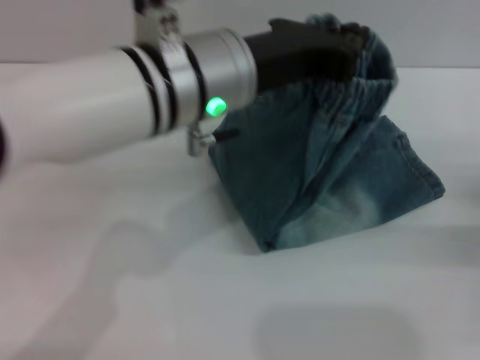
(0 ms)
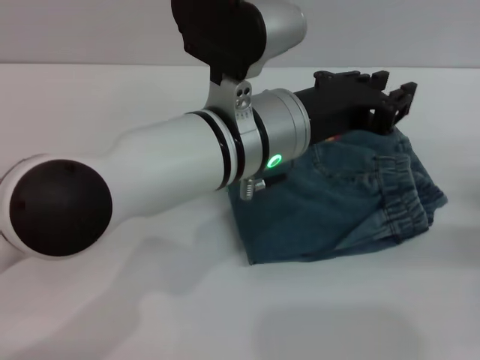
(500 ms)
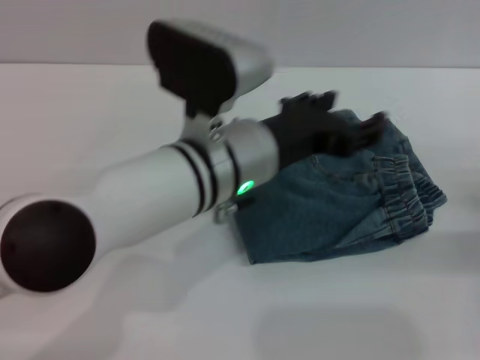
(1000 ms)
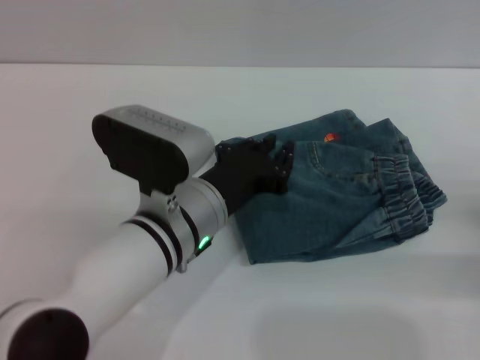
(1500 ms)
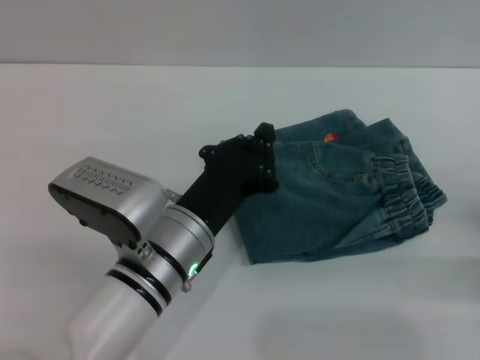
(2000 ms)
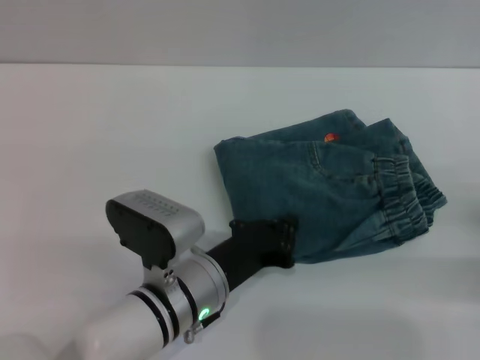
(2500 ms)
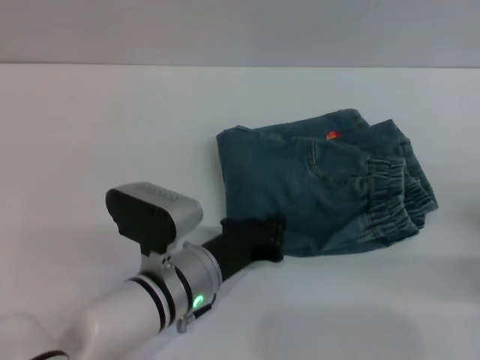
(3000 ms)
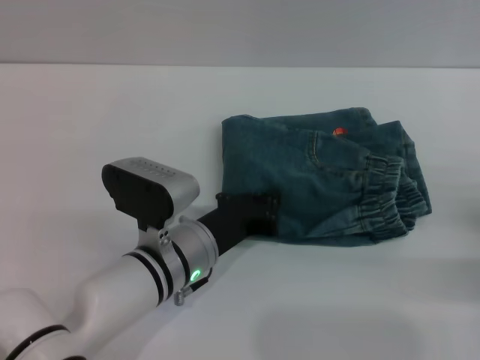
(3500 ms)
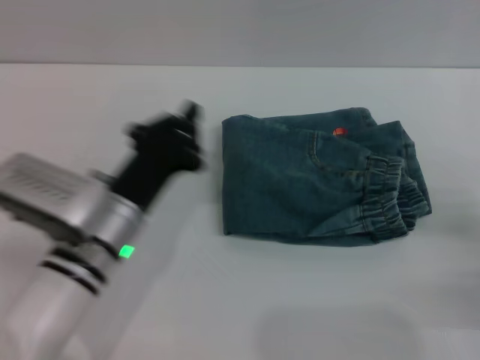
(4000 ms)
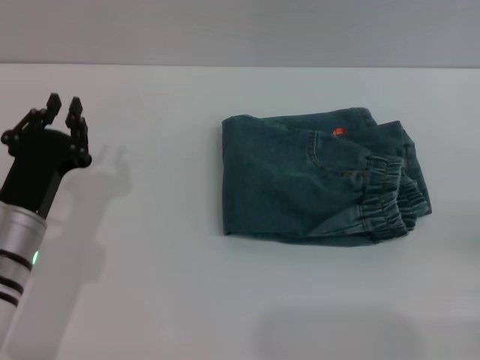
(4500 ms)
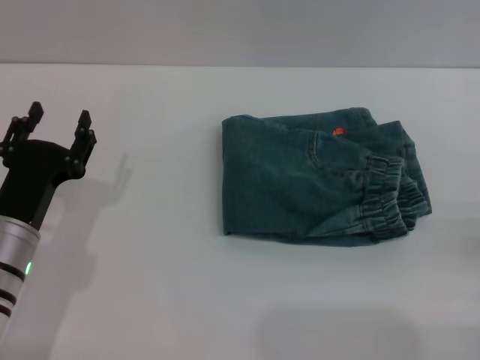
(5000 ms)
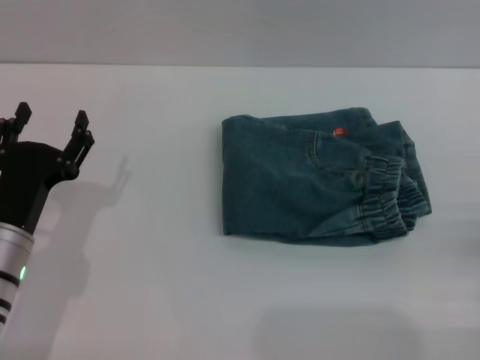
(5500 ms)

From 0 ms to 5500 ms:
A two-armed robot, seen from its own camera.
Step, from 1000 ms to 4000 ms: Place the folded trousers onto the center area with the left grippers.
From 0 ms to 2000 ms: The left gripper goes approximately 15 cm downward, and opens, then closes again.
From 3500 ms to 5500 ms: The right gripper goes about 5 cm backward, and opens; the left gripper goes about 15 cm to the left, and opens.

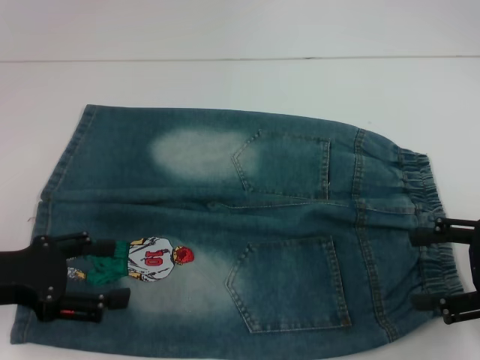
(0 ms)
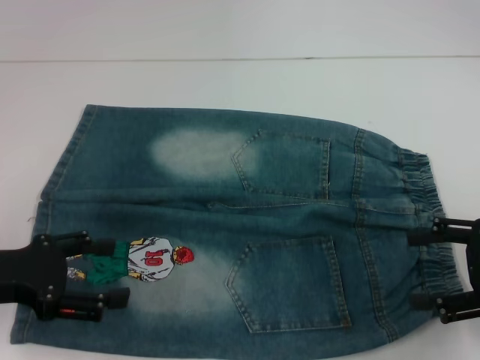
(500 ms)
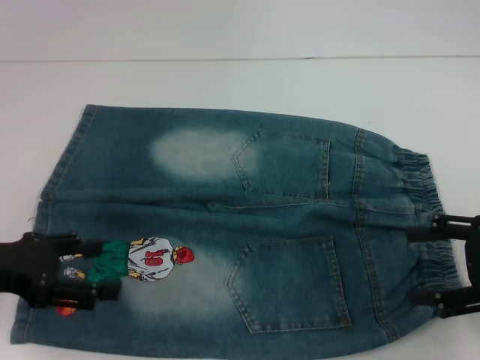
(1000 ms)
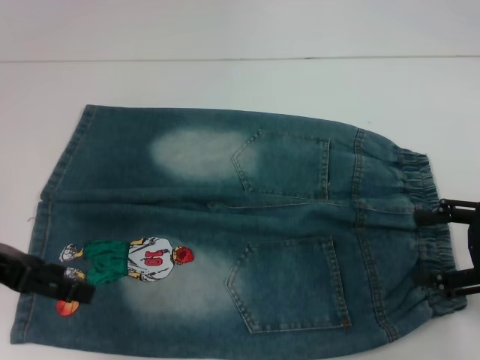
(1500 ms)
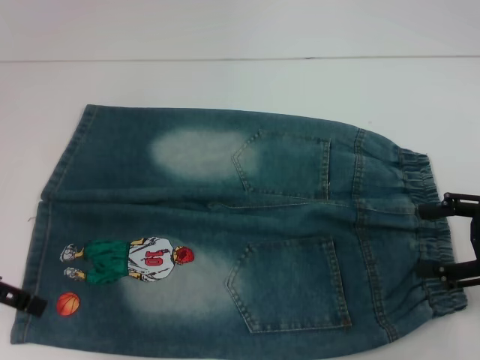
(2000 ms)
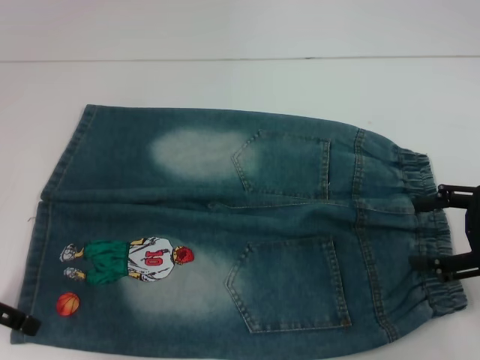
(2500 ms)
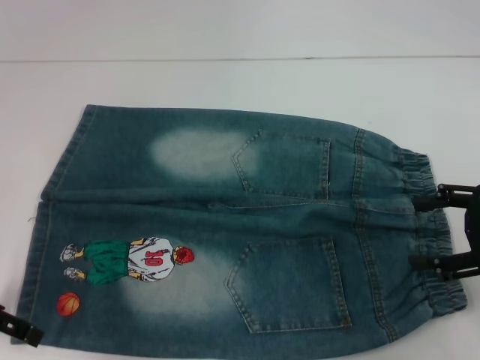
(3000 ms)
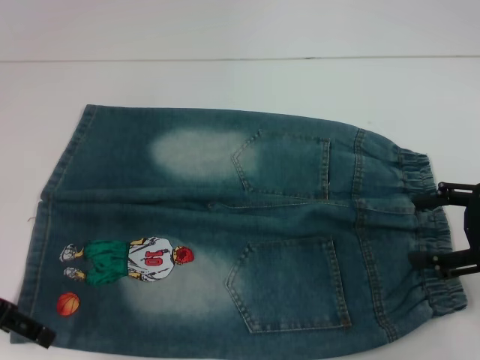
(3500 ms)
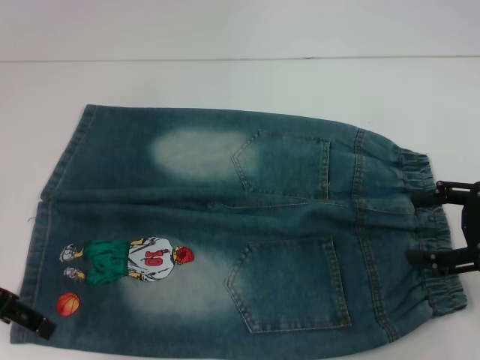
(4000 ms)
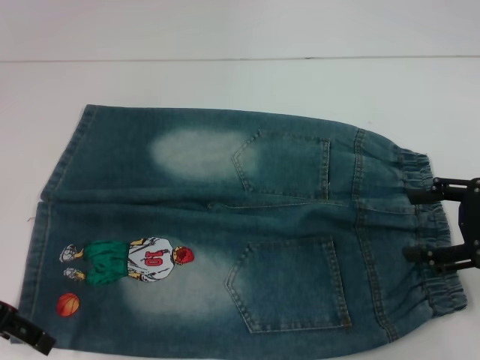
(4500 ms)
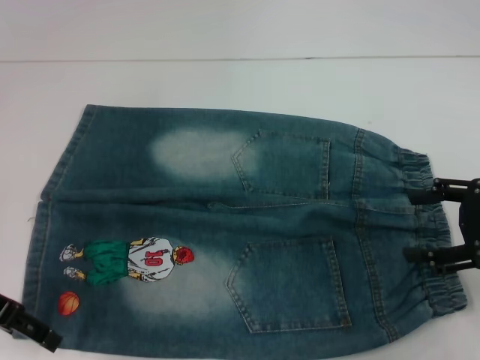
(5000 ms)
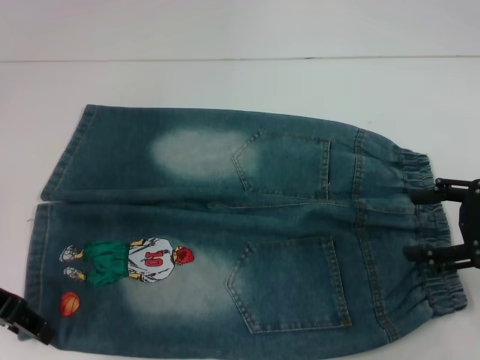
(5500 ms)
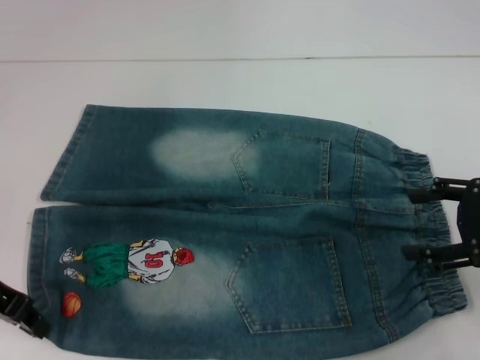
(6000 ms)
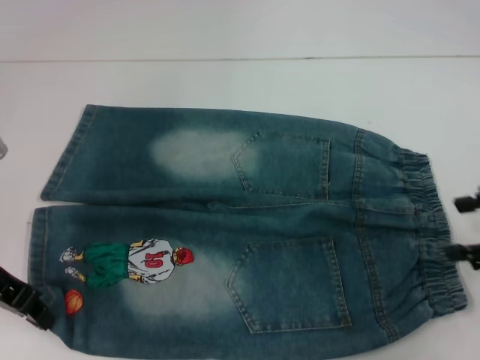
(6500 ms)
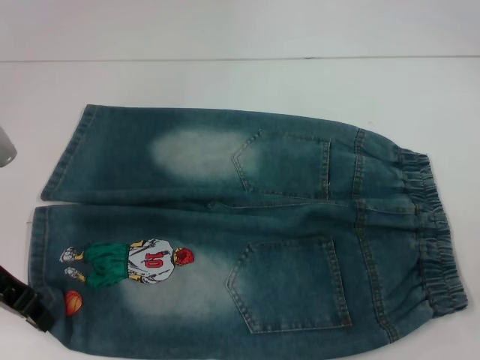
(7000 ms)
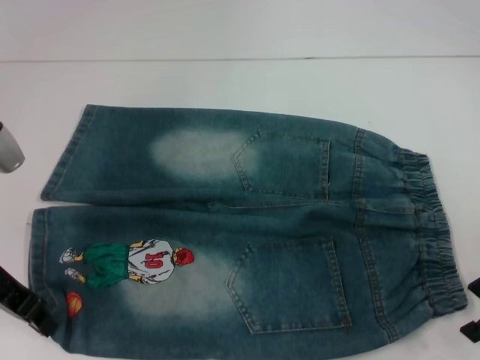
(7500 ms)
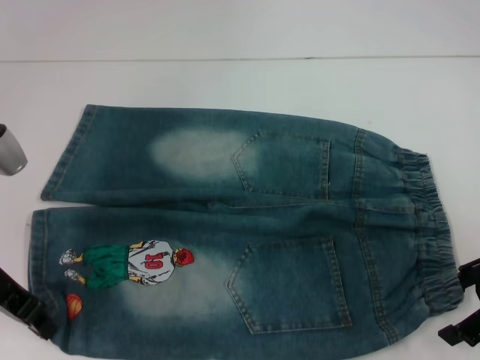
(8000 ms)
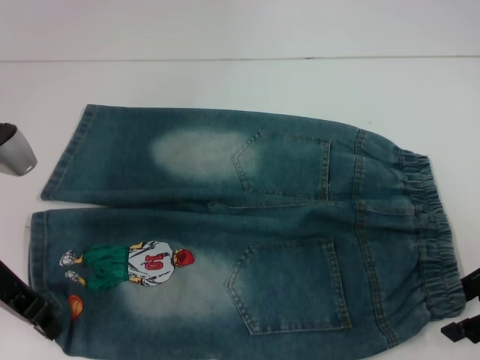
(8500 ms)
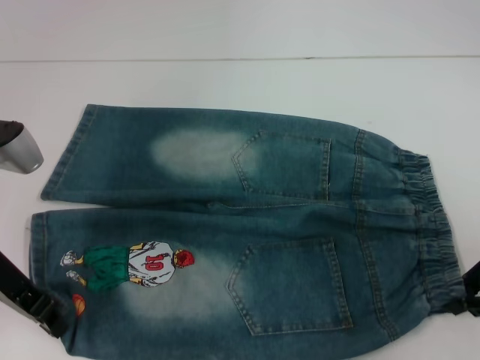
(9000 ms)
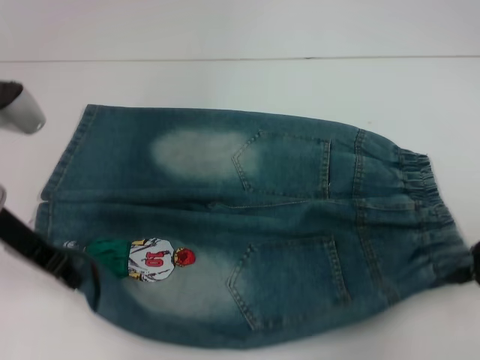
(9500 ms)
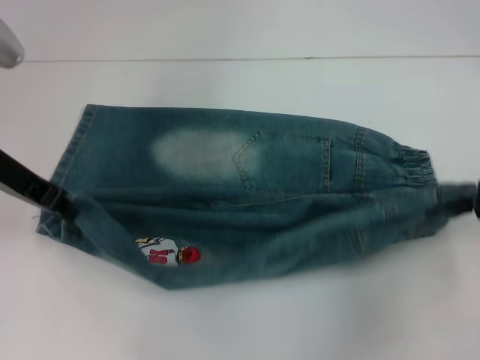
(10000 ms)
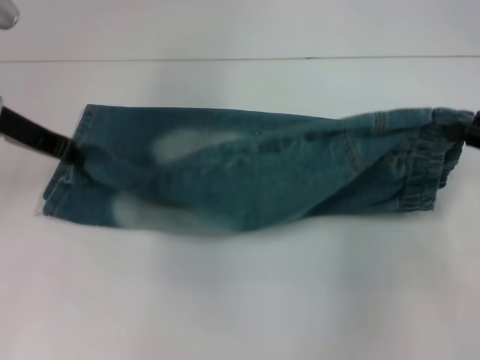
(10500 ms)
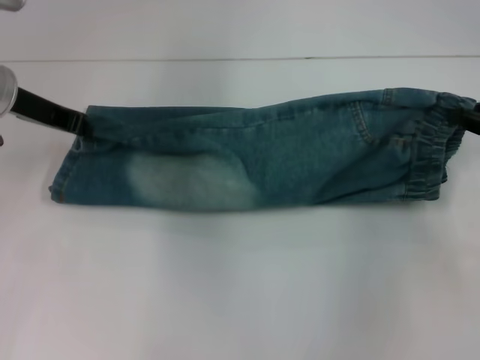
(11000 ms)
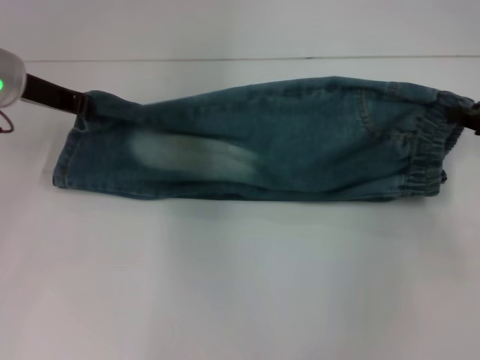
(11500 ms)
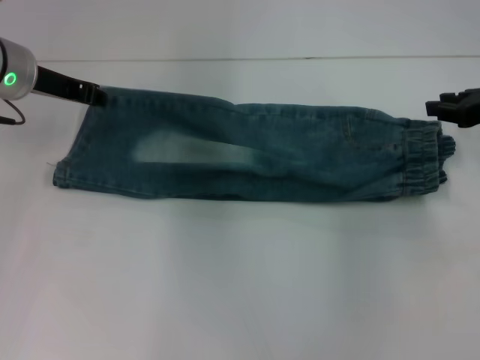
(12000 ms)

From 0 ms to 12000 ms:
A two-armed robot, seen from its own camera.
Step, from 0 ms to 7500 ms: Grab the lower left pant leg with your left hand.
Step, from 8000 ms to 8500 ms: Hold the lower right waistband with your right hand.
From 0 ms to 2000 ms: The left gripper ends up about 5 cm from where it was.
From 2000 ms to 4000 ms: The grippers stay close to where they were, moving slightly.
From 4000 ms to 6000 ms: The left gripper closes its fingers.
From 8000 ms to 10000 ms: The right gripper shifts by roughly 5 cm, and closes its fingers; the left gripper heads forward and upward, covering some 10 cm.
From 10000 ms to 12000 ms: The grippers both shift forward by some 5 cm.

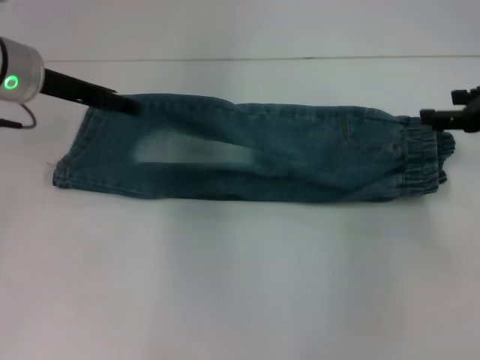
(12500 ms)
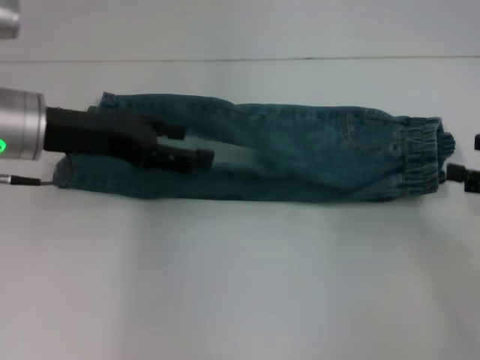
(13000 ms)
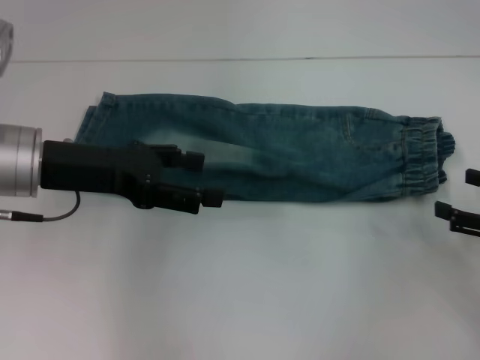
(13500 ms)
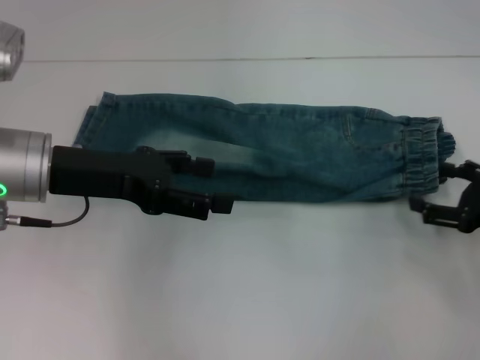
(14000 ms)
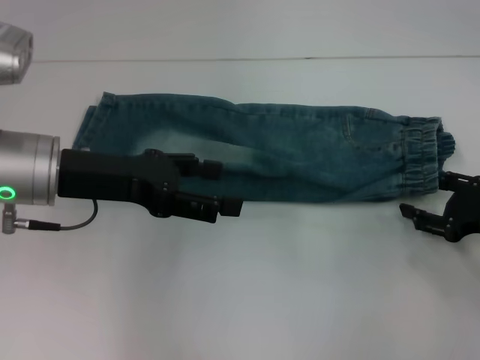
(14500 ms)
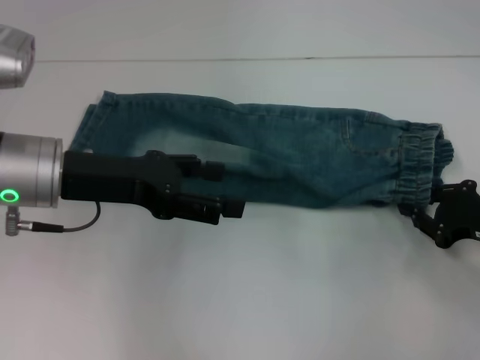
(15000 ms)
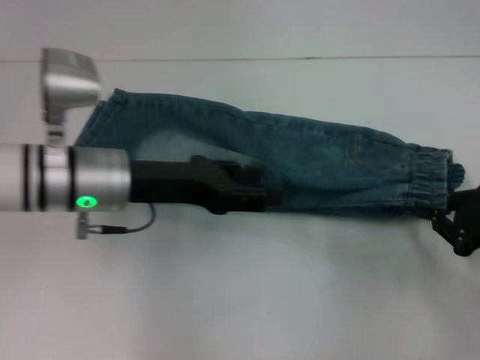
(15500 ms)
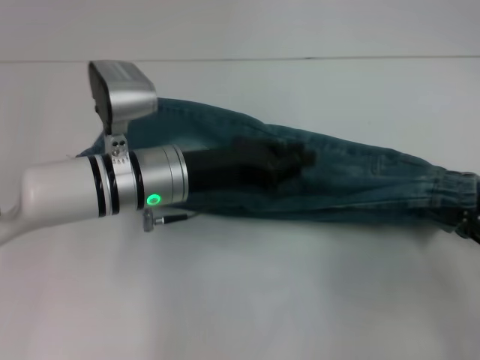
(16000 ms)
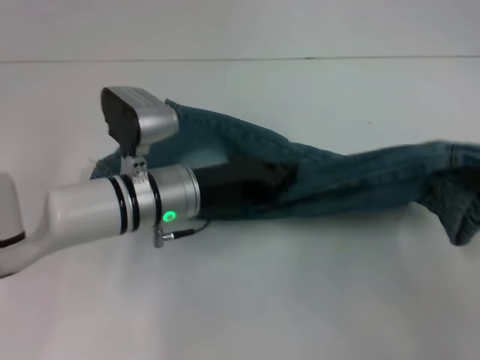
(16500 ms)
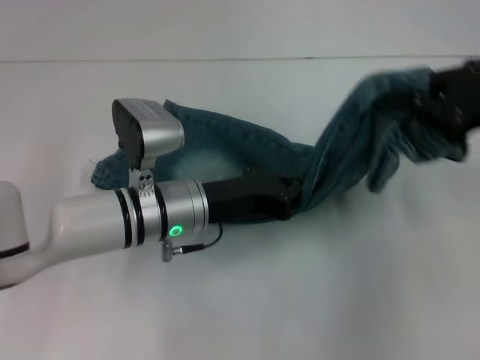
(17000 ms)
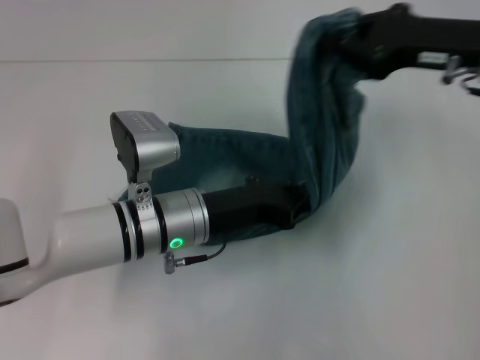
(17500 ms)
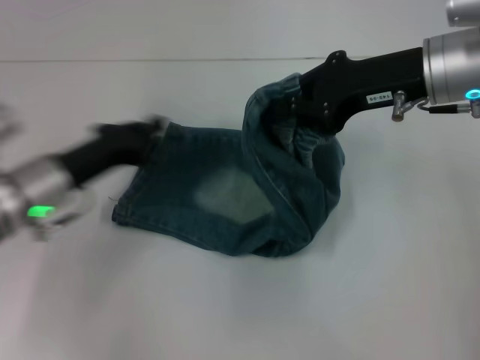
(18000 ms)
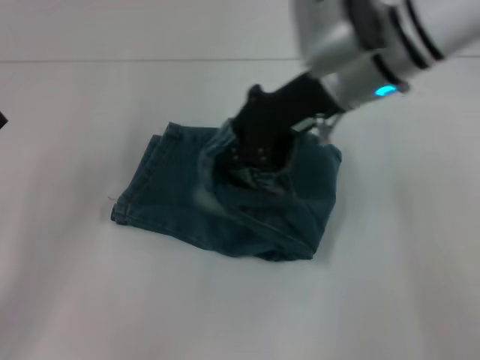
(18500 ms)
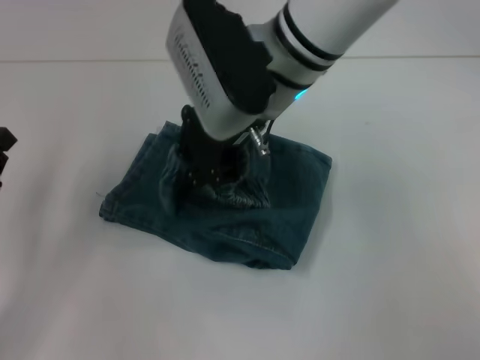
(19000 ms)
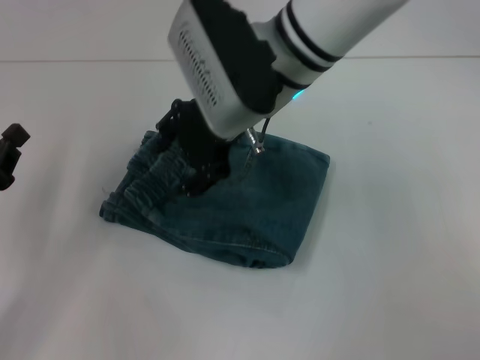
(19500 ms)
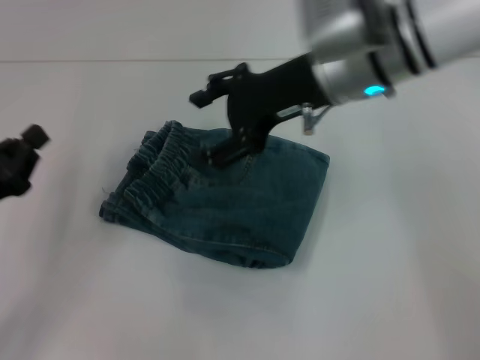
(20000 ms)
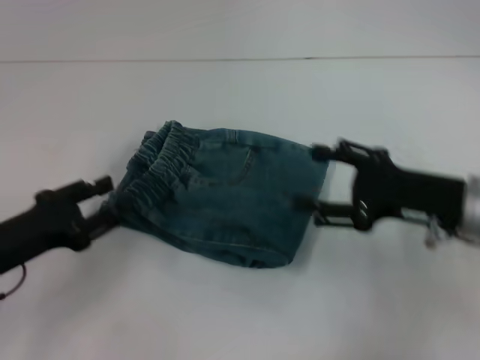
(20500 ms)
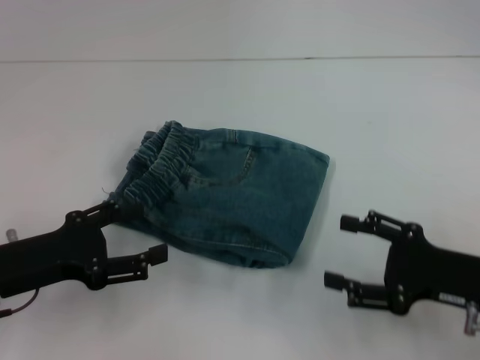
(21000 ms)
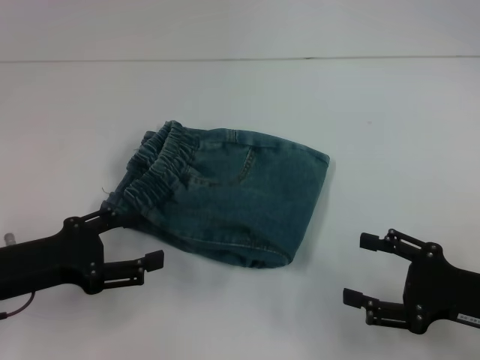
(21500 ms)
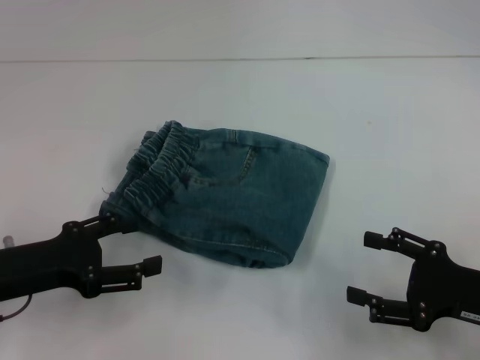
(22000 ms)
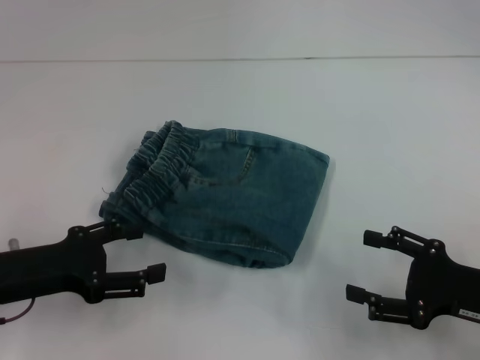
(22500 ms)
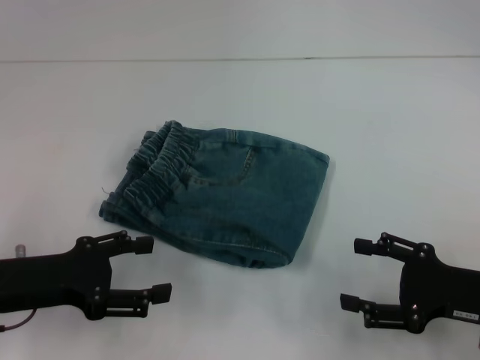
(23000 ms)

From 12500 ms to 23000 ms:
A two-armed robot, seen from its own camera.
Step, from 13000 ms to 14500 ms: Grab the waistband with your right hand.
Step, from 15000 ms to 17500 ms: Press the middle of the pants with your left hand.
Step, from 18000 ms to 19500 ms: Fold to the left with your right hand.
From 12500 ms to 14500 ms: The right gripper moves downward and backward, roughly 15 cm, while the left gripper moves backward, some 10 cm.
From 14500 ms to 16500 ms: The right gripper shifts approximately 10 cm upward, and closes; the left gripper is displaced to the right and downward by about 15 cm, and closes.
From 16500 ms to 19000 ms: The left gripper goes roughly 25 cm to the left and backward. Meanwhile the right gripper travels to the left and forward by approximately 35 cm.
From 19000 ms to 21000 ms: The right gripper heads to the right, backward and downward, covering roughly 35 cm, and opens its fingers; the left gripper heads to the right, covering approximately 5 cm, and opens its fingers.
From 21000 ms to 23000 ms: The grippers make only small movements.
